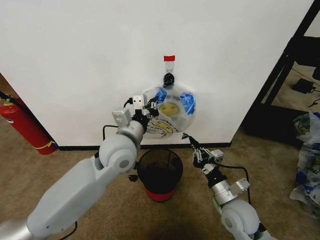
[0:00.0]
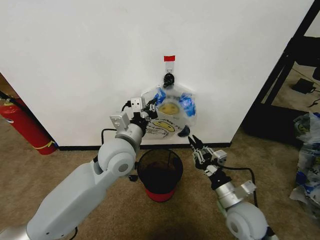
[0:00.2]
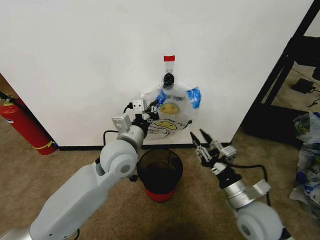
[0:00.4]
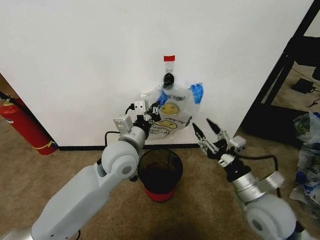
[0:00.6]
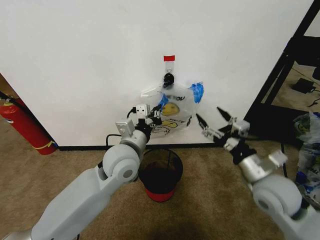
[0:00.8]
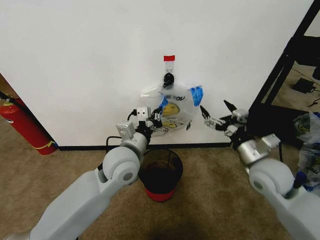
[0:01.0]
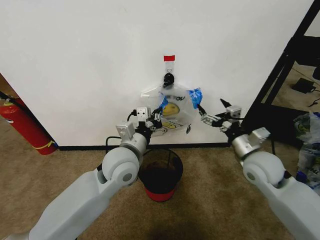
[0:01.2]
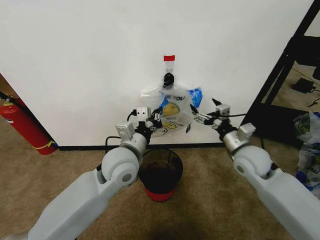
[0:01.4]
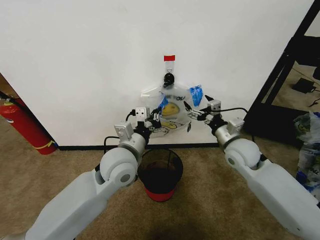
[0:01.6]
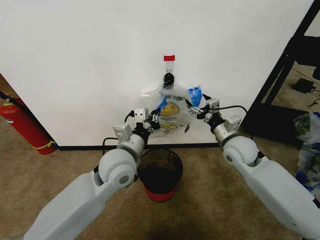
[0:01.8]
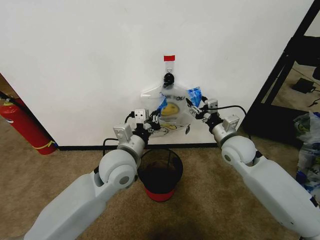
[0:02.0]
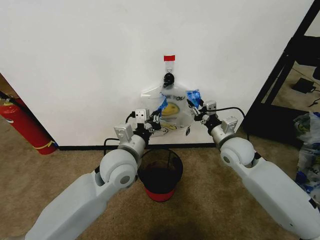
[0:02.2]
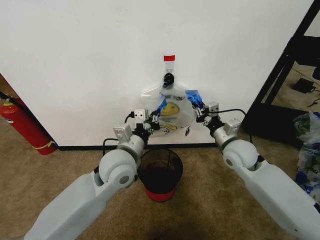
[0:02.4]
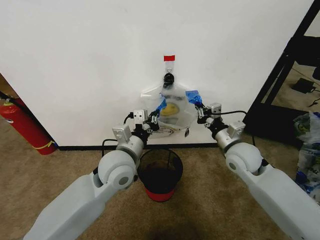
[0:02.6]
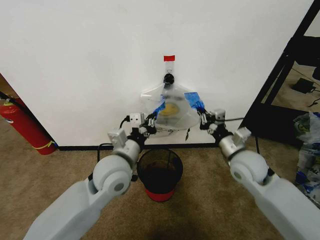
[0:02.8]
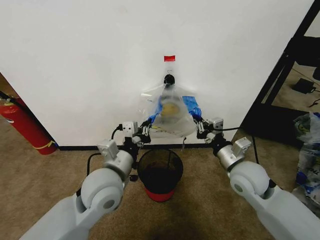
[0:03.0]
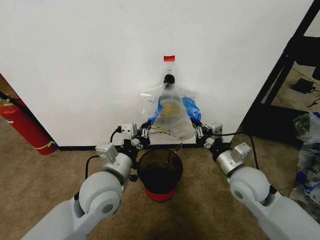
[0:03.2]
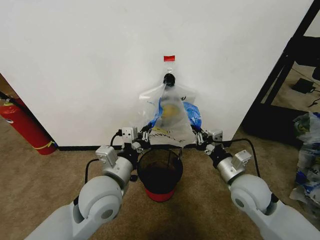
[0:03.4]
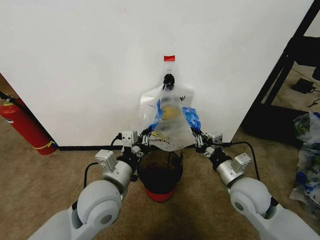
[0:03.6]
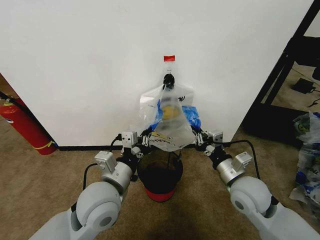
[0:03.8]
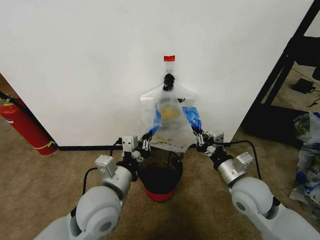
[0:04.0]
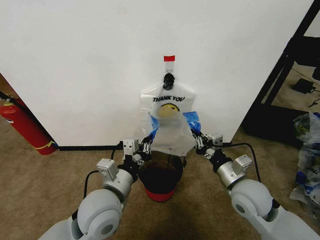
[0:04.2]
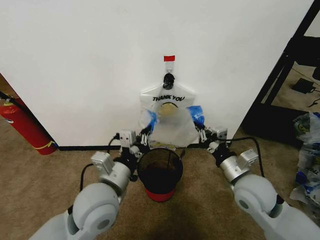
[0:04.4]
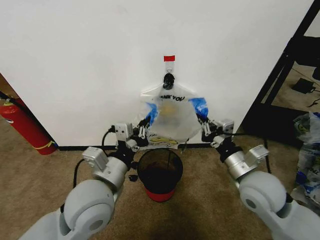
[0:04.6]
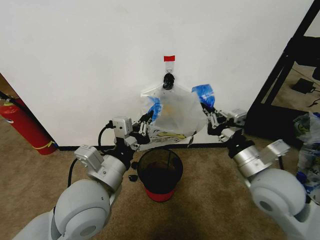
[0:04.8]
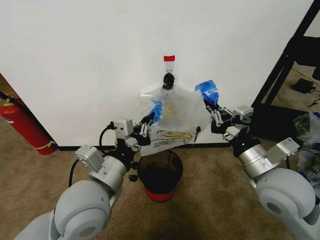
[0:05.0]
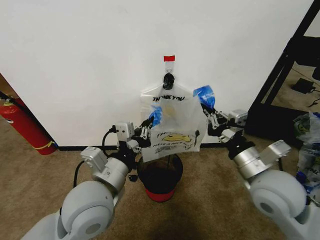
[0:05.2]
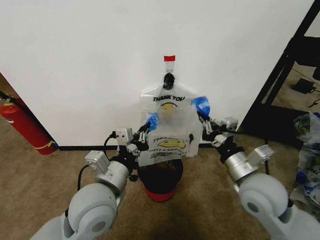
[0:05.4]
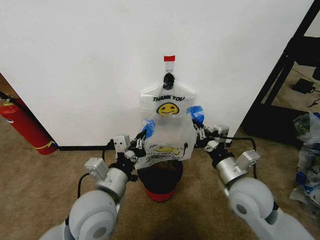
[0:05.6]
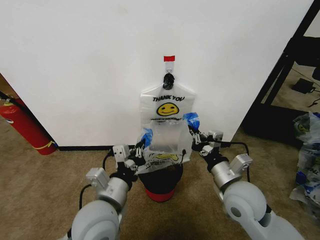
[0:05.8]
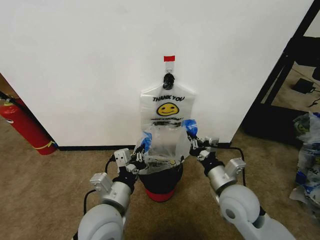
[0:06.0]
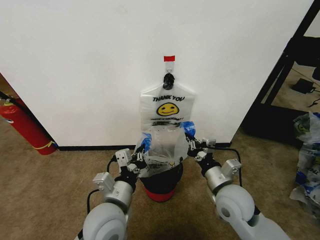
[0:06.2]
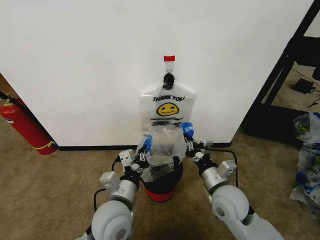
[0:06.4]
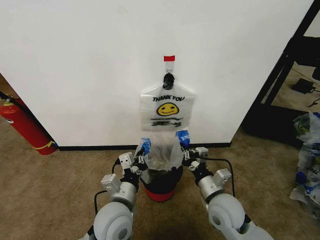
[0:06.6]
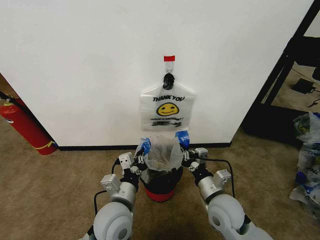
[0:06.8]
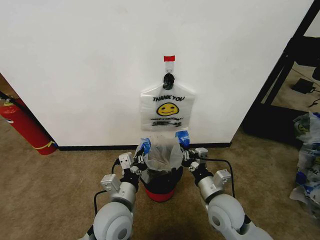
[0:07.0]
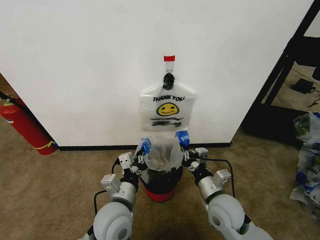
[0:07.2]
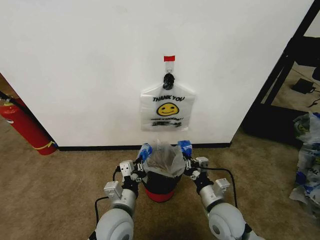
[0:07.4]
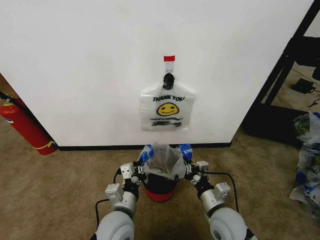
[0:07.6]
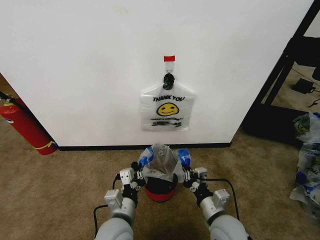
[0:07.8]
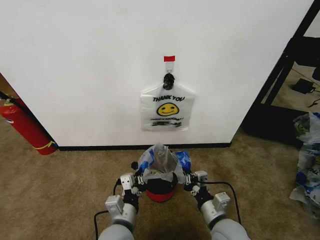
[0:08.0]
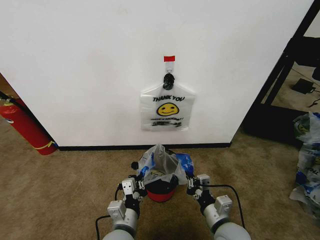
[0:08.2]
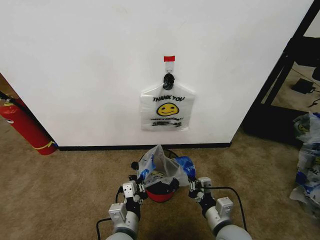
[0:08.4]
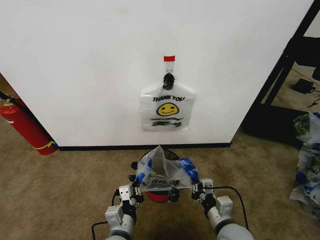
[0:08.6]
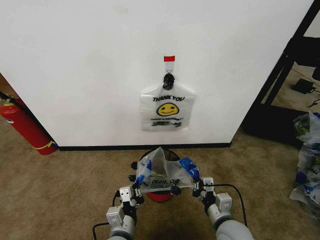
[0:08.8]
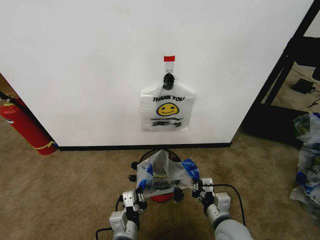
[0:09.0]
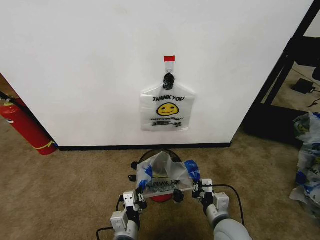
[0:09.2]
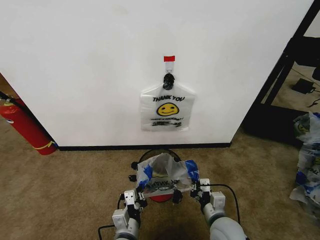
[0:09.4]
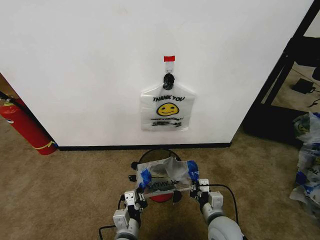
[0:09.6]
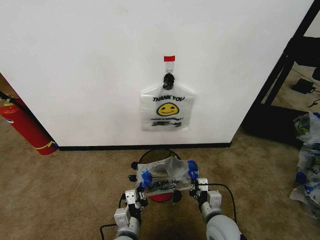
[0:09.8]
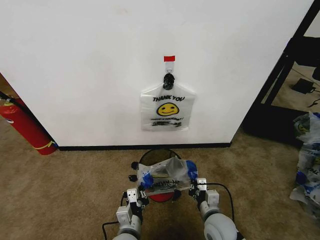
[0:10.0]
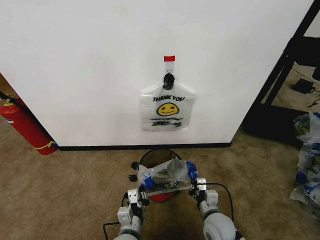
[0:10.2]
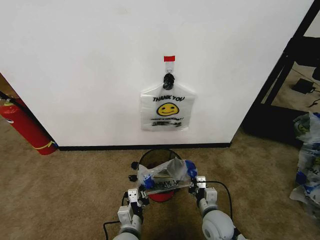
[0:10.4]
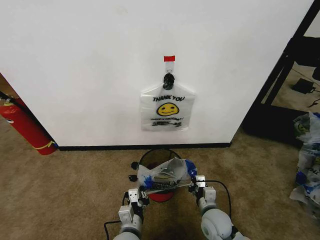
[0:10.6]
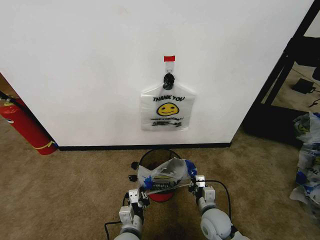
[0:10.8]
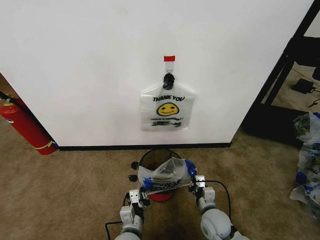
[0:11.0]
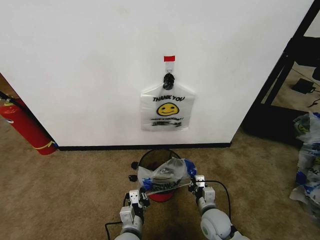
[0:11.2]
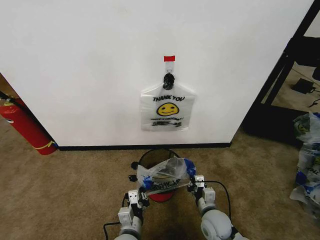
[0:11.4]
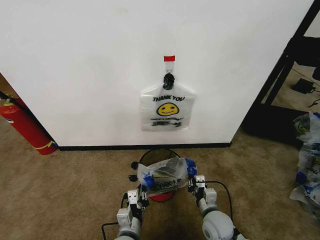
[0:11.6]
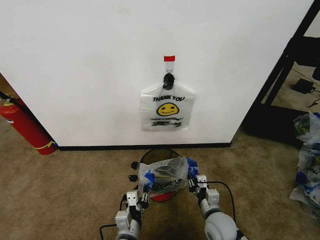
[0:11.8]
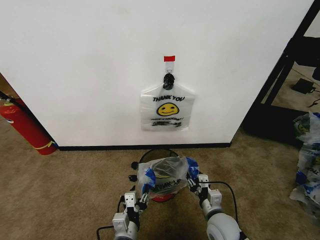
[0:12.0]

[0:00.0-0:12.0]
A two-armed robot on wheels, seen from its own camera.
Task of the whole recording: Pick up the garbage bag from the wall and place it over the trash bin.
0:00.0 to 0:01.6: The right gripper goes roughly 20 cm forward and upward, and opens.
0:01.6 to 0:03.0: Both grippers travel together backward, approximately 5 cm. The right gripper closes.
0:03.0 to 0:04.4: The grippers make only small movements.
0:04.4 to 0:06.0: The left gripper ends up approximately 5 cm from where it was. Meanwhile the right gripper reaches approximately 10 cm upward, then returns.
0:06.0 to 0:07.6: The grippers both shift downward by approximately 10 cm.
0:07.6 to 0:09.0: The left gripper heads backward, covering approximately 5 cm.
0:09.0 to 0:10.4: The right gripper goes about 5 cm downward; the left gripper ends up some 5 cm from where it was.
0:10.4 to 0:12.0: The left gripper opens. Meanwhile the right gripper opens.

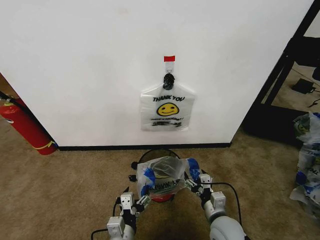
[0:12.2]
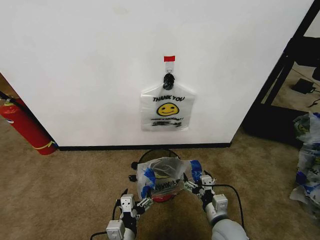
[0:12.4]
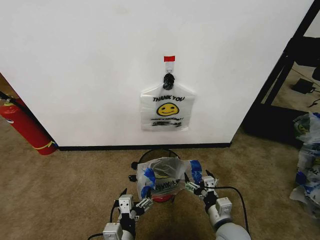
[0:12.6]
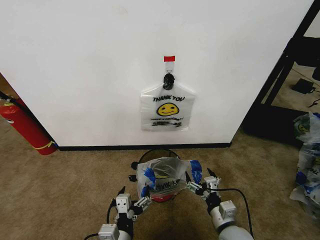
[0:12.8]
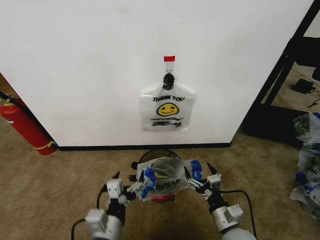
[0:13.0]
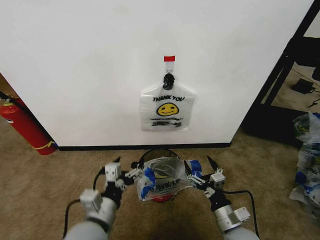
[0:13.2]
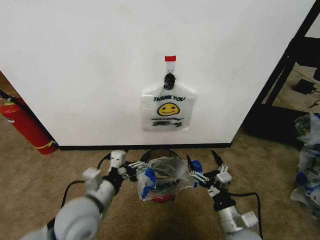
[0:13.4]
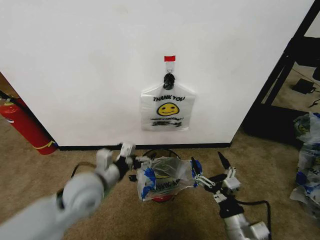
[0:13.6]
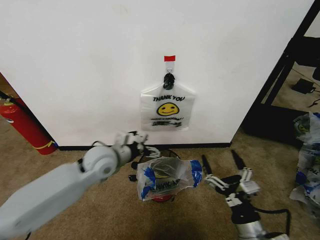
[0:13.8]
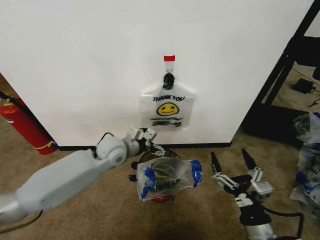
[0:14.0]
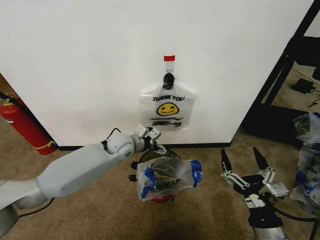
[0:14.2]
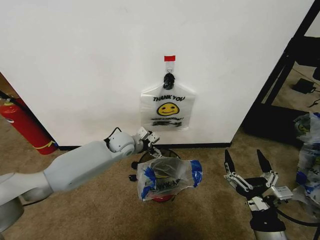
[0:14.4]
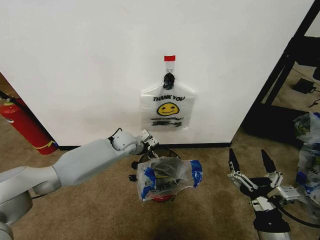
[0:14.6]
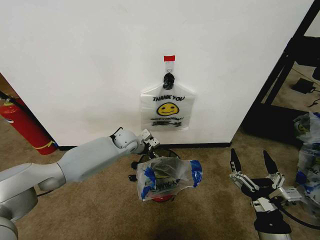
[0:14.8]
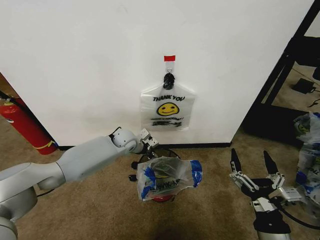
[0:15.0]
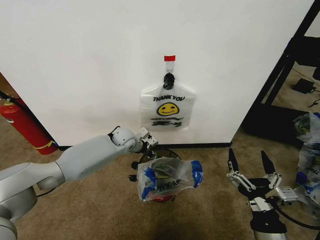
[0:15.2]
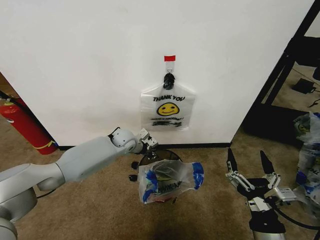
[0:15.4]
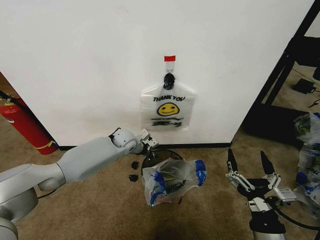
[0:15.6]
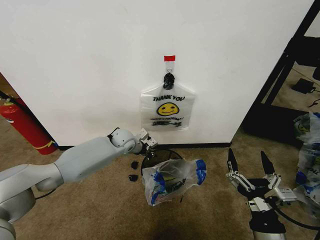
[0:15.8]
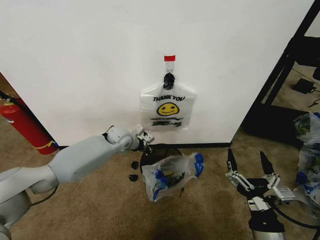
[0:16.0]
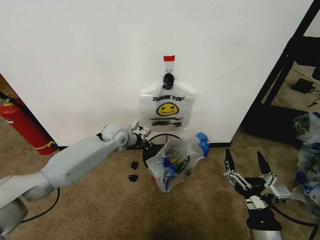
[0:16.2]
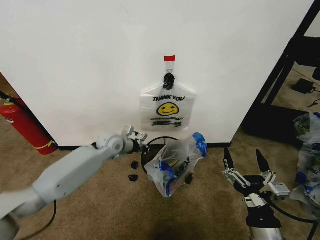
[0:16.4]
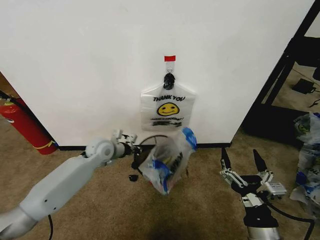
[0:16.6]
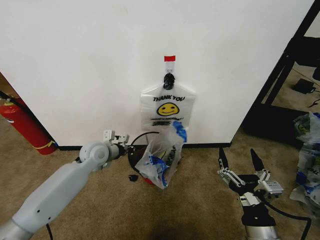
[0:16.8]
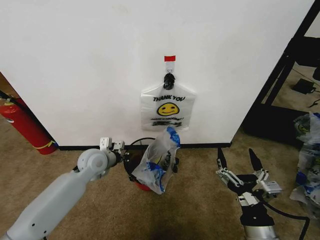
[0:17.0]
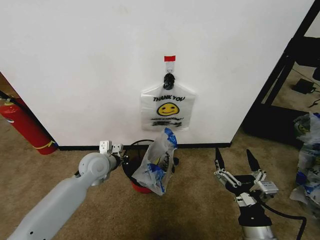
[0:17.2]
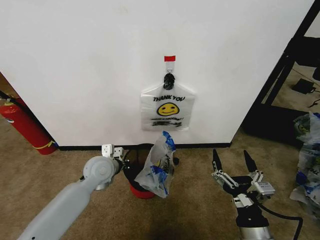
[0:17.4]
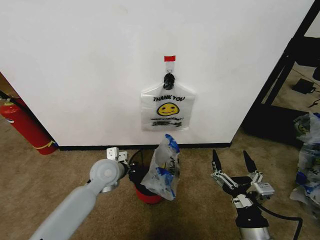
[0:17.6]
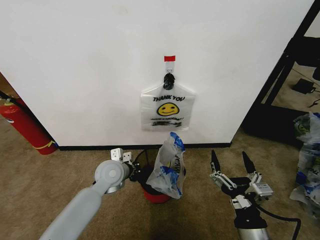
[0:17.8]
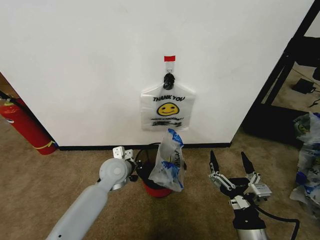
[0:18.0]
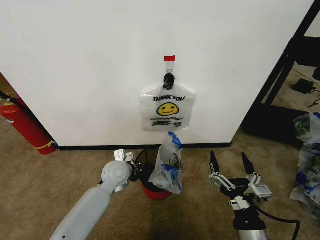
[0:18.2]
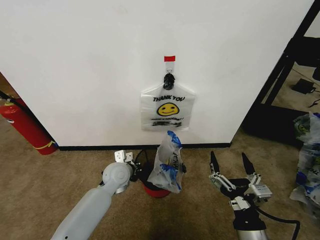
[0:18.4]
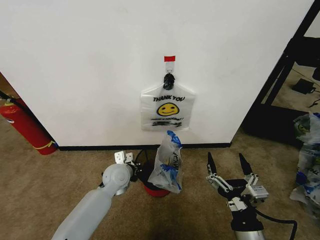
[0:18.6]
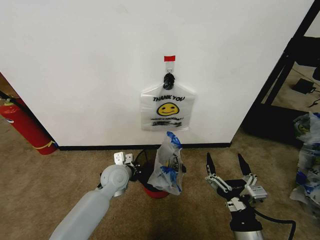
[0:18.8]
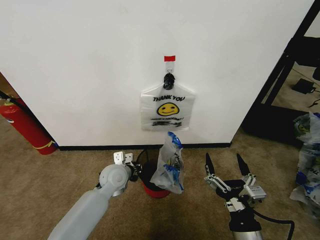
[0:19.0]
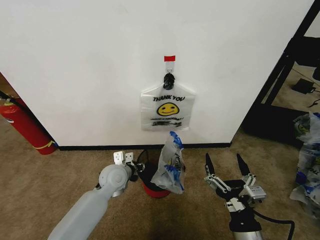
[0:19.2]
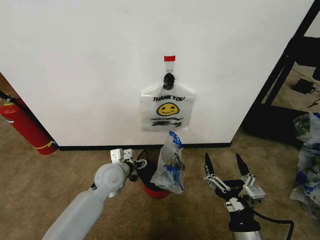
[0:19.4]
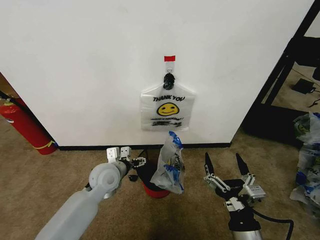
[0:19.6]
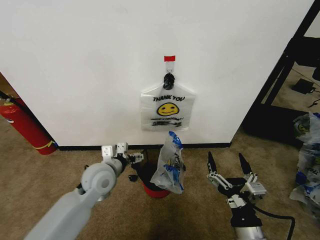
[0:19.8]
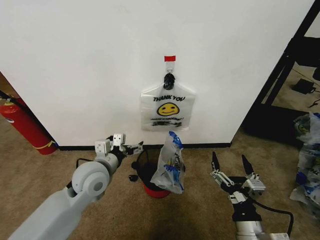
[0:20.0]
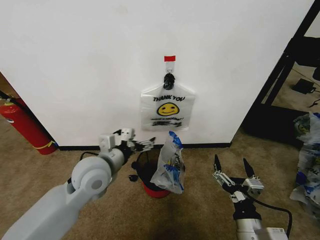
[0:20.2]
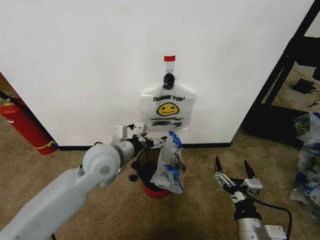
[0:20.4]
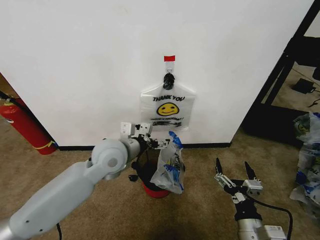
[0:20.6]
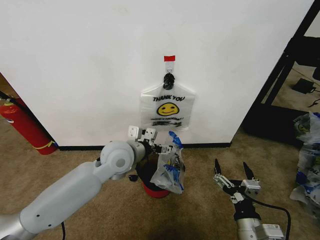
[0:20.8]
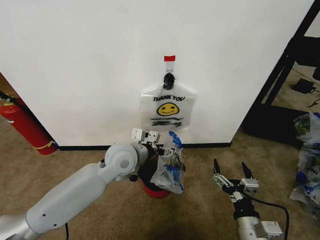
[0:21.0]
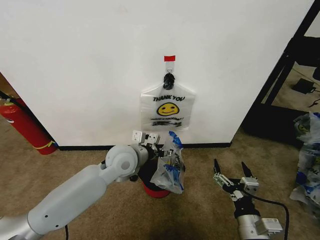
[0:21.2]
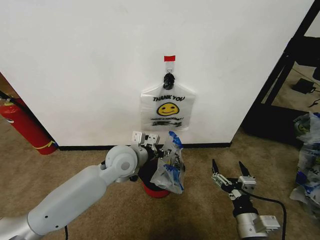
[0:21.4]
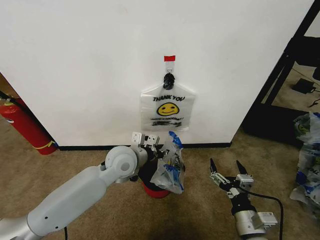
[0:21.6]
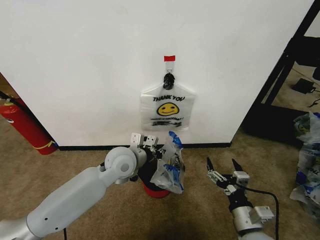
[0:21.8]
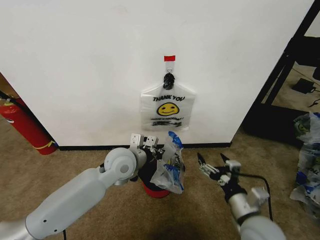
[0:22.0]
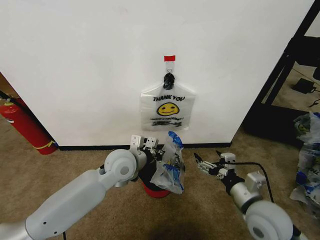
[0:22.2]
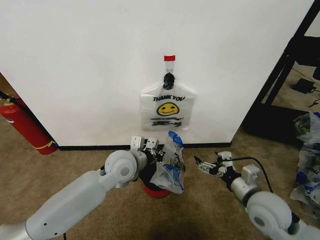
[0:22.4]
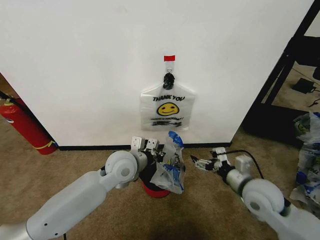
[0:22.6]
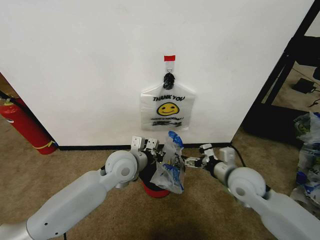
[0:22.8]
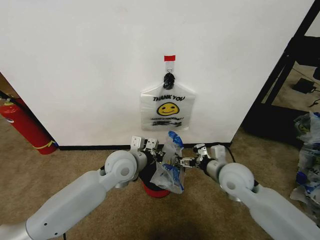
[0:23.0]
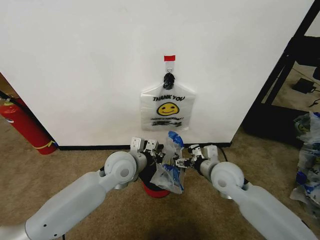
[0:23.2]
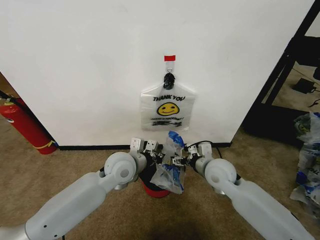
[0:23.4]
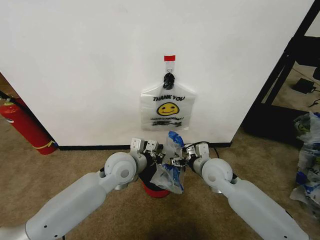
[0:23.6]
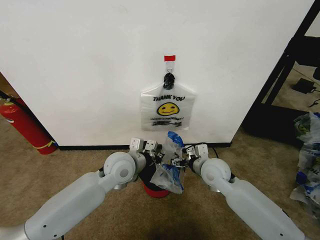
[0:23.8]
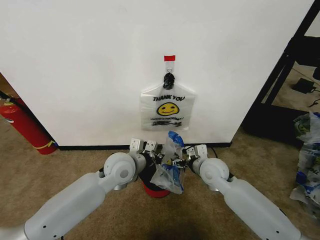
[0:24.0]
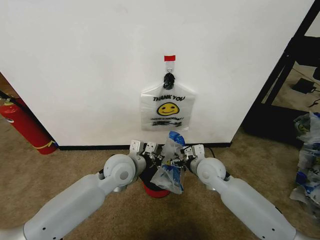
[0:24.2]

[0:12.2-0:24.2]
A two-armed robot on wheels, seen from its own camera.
Task of the whole recording: Pick up the garbage bag from the wall and place it over the trash bin.
0:12.2 to 0:13.8: The right gripper travels backward and upward by approximately 10 cm; the left gripper moves forward and upward, some 25 cm.
0:13.8 to 0:15.2: The left gripper moves forward and downward, about 20 cm, and closes its fingers.
0:15.2 to 0:16.6: The left gripper goes approximately 10 cm backward and to the left, and closes.
0:16.6 to 0:18.2: The left gripper moves backward, to the right and downward, some 10 cm.
0:18.2 to 0:19.8: The left gripper is displaced upward by roughly 5 cm, and opens its fingers.
0:19.8 to 0:21.2: The left gripper moves to the right and upward, about 10 cm. Meanwhile the right gripper changes place by about 5 cm.
0:21.2 to 0:22.6: The right gripper shifts some 15 cm forward and upward. The left gripper closes up.
0:22.6 to 0:24.2: The right gripper moves to the left and forward, approximately 15 cm.
